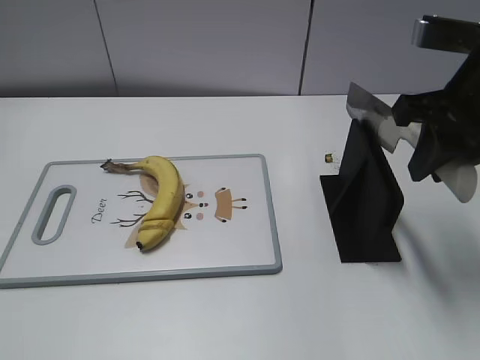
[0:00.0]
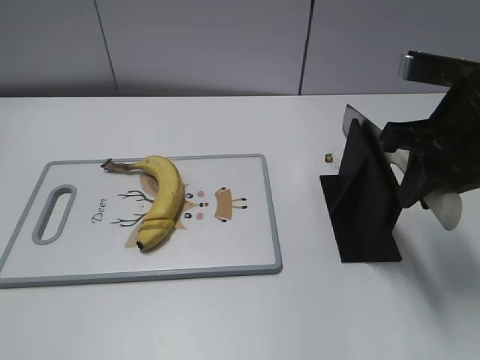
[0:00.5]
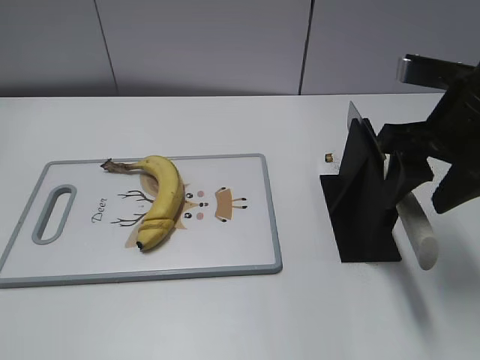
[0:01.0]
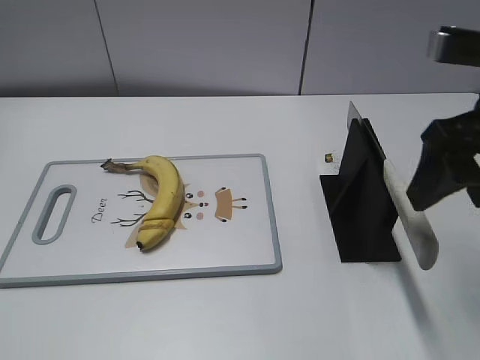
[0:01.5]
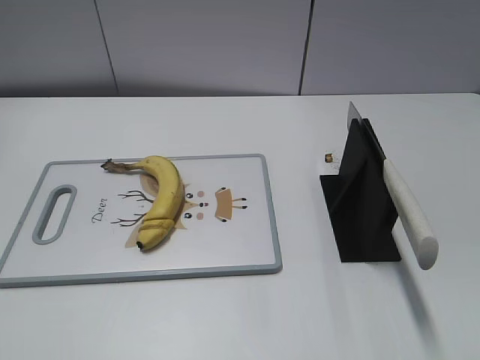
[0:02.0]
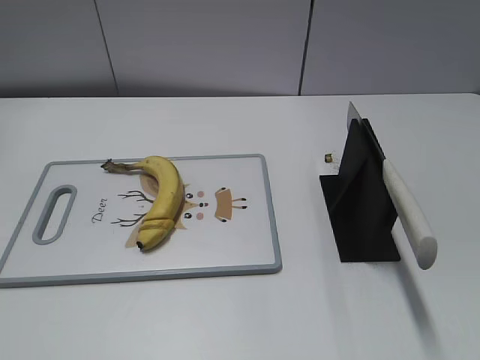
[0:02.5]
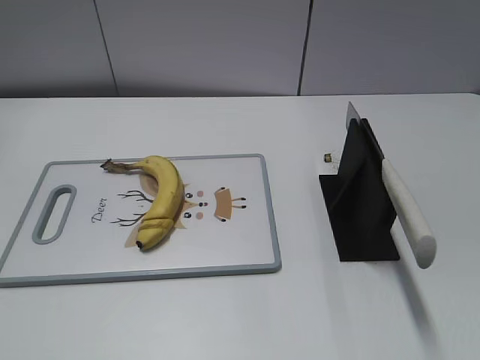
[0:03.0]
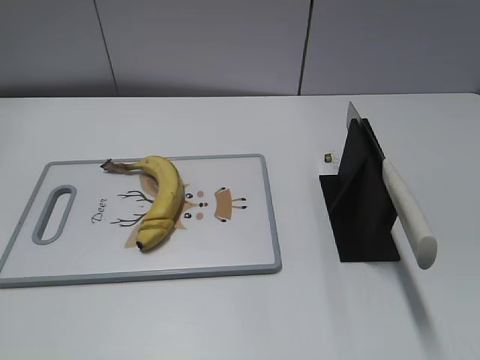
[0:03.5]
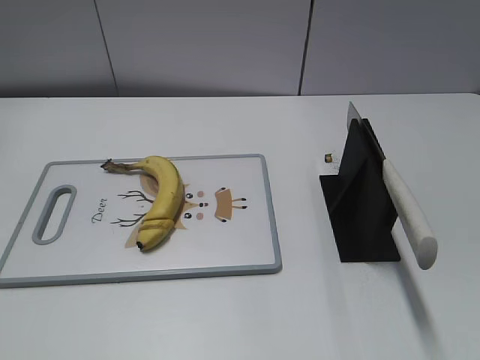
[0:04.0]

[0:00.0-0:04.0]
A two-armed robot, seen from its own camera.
Task of the whole recording: cut banana.
Step, 0:01.0 to 0:04.0: Place the knife on the storage rack with your right hand.
0:00.0 to 0:02.0: The right gripper moves backward, about 15 cm, and opens.

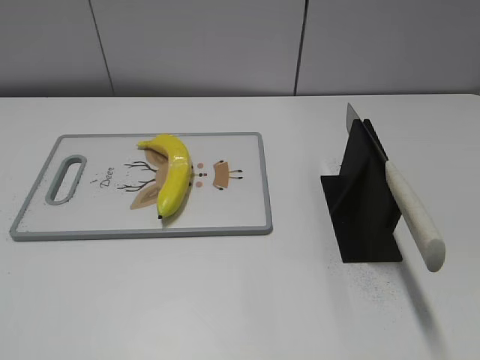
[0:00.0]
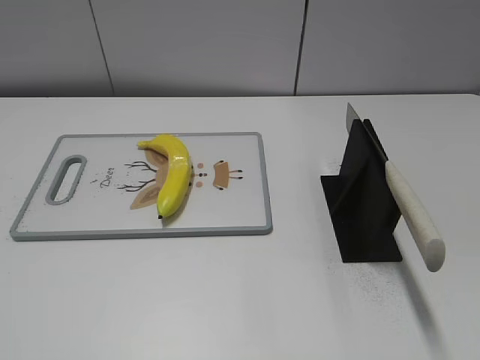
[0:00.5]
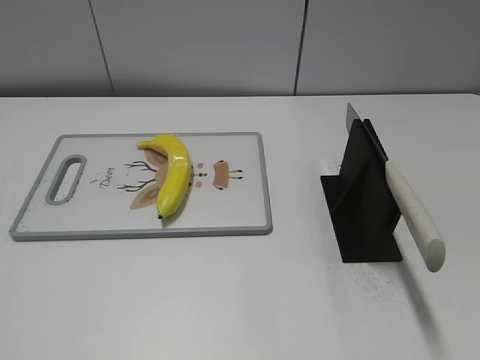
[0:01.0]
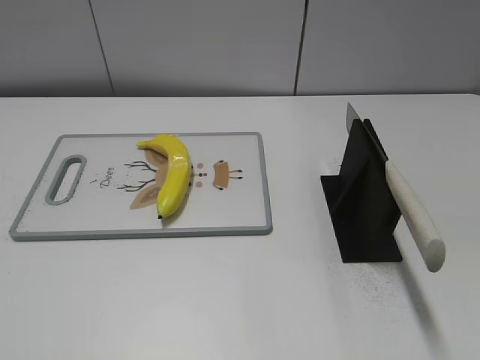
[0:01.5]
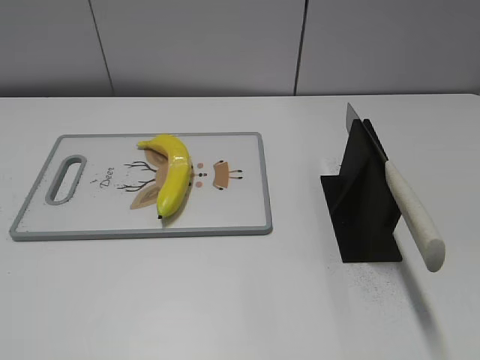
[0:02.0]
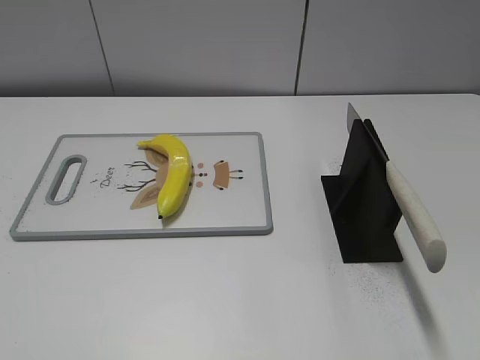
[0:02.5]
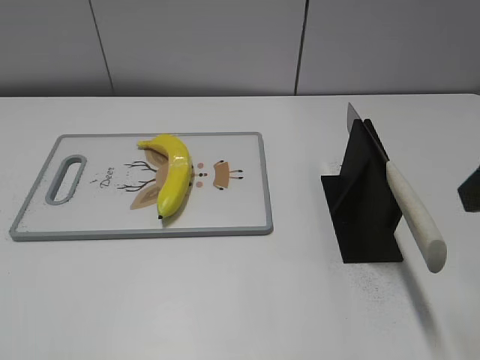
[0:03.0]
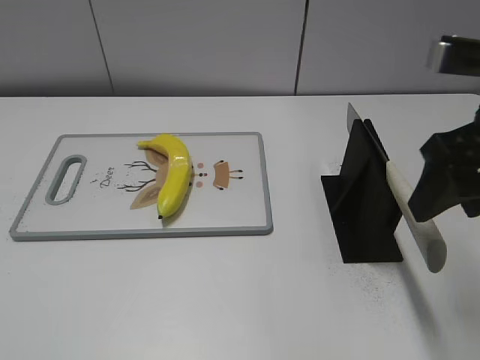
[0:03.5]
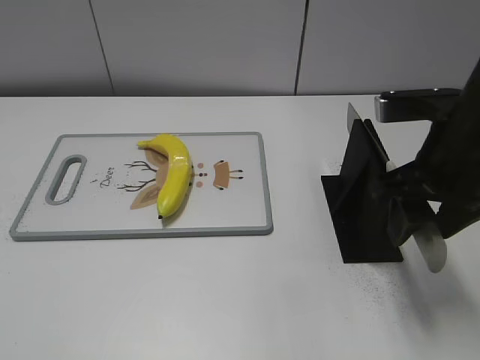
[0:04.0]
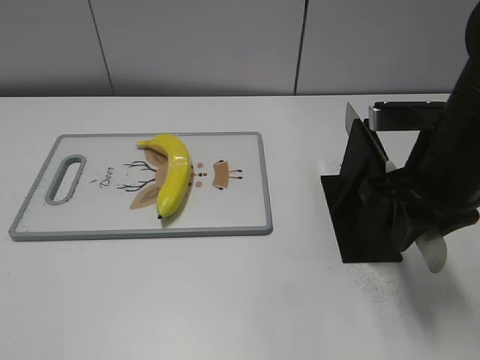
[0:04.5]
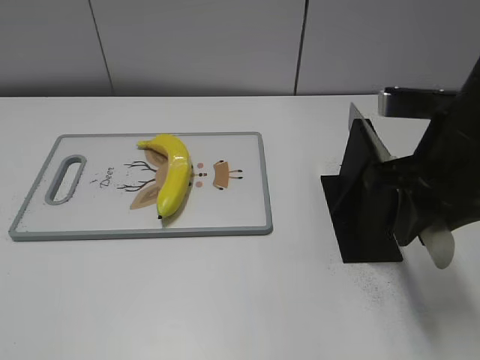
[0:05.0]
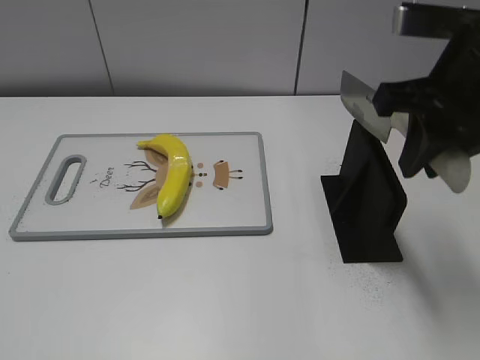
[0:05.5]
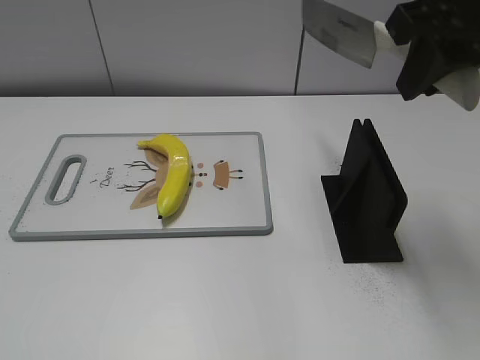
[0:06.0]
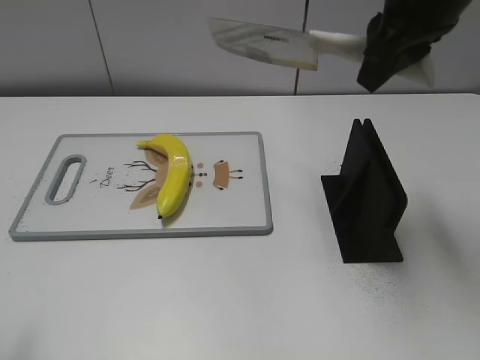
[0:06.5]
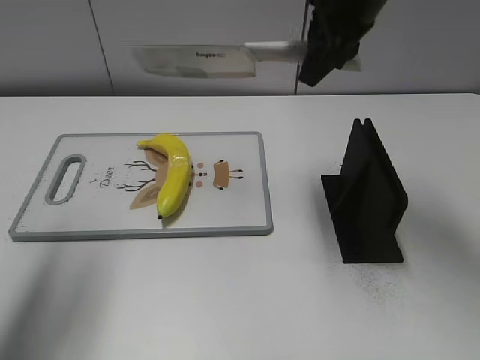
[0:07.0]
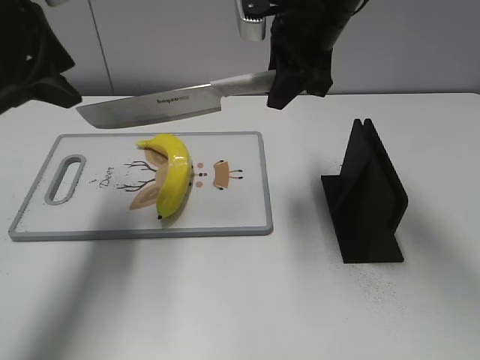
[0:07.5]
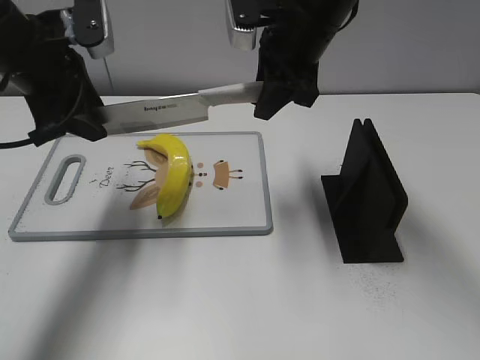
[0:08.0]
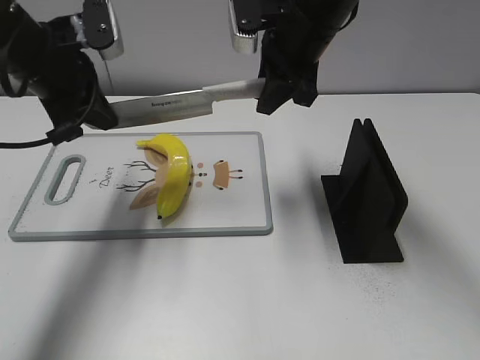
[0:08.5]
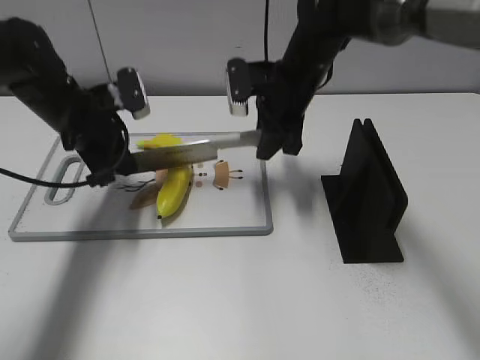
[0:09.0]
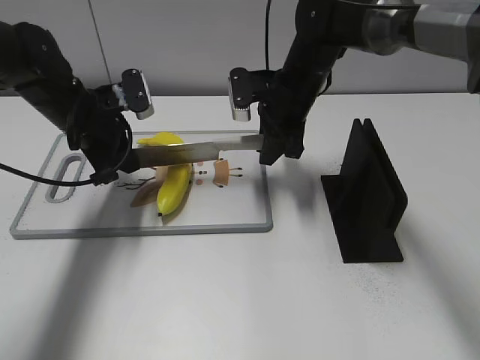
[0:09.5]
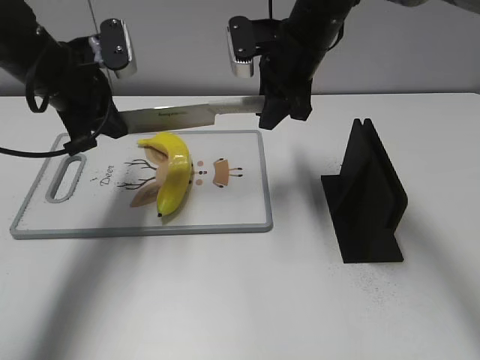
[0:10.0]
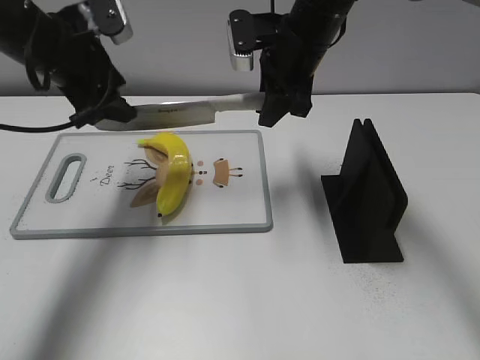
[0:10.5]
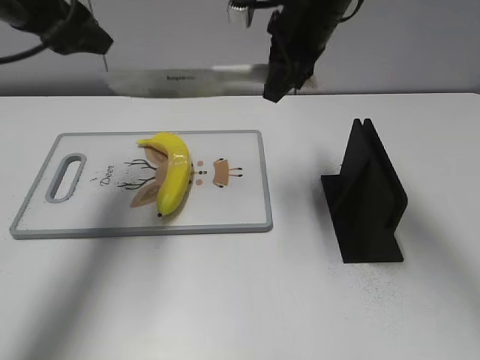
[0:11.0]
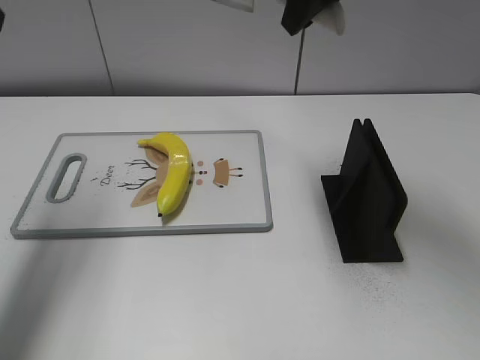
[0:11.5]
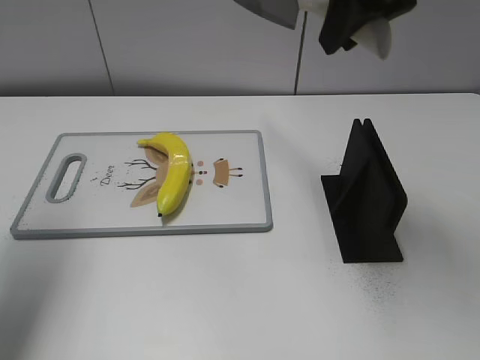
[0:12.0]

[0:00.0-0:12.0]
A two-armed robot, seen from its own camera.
Task of the whole recording: cut plastic banana.
Step, 0:00.0 to 0:05.5: Grab the knife handle with your right hand.
Step, 0:06.0 to 0:10.0: Hold the blade with your left hand.
Step, 0:10.5 to 0:11.5: Cut the banana with your left hand.
0:02.0 to 0:04.0: The right gripper shifts some 25 cm forward and to the left.
0:04.0 to 0:06.0: The right gripper is displaced upward by about 15 cm, and closes.
0:06.0 to 0:08.0: The right gripper is displaced forward, to the left and downward by some 20 cm. Meanwhile the left gripper heads forward, covering approximately 35 cm.
0:08.0 to 0:10.0: The left gripper closes up.
0:10.0 to 0:12.0: The right gripper moves upward and backward, roughly 20 cm, while the left gripper is displaced upward, to the left and backward by approximately 20 cm, and opens its fingers.

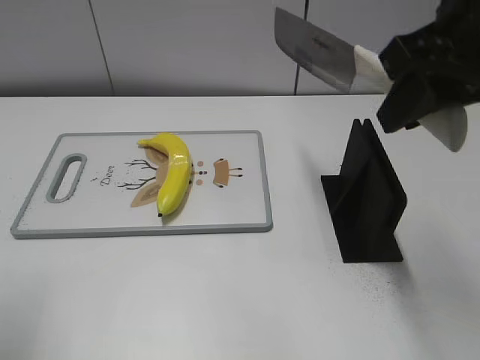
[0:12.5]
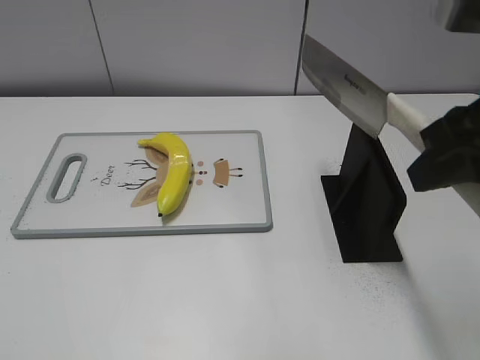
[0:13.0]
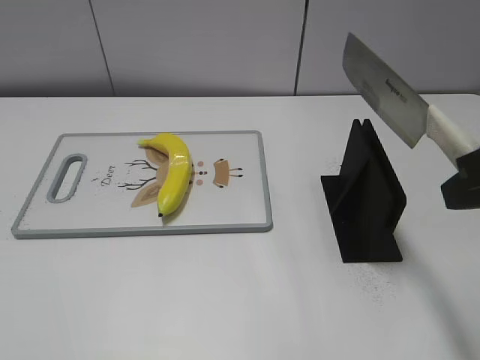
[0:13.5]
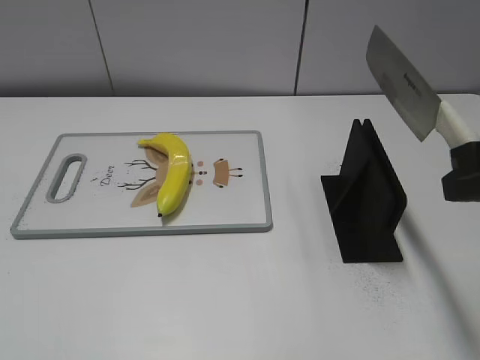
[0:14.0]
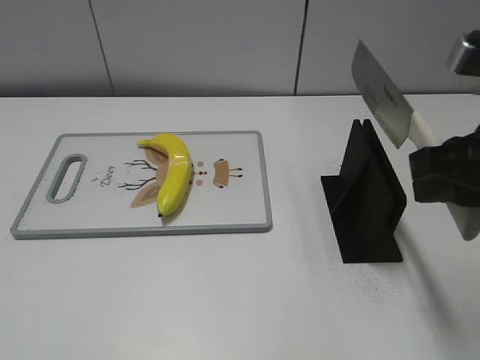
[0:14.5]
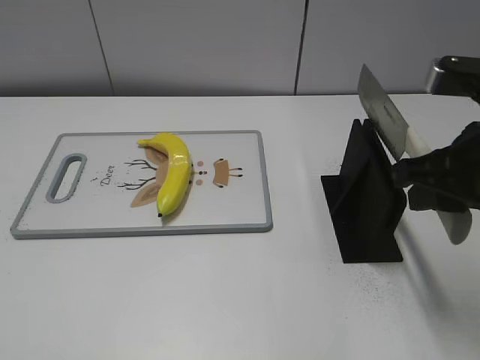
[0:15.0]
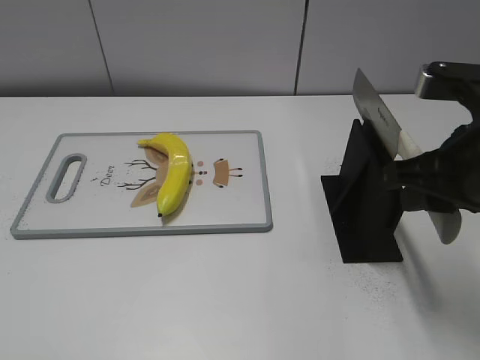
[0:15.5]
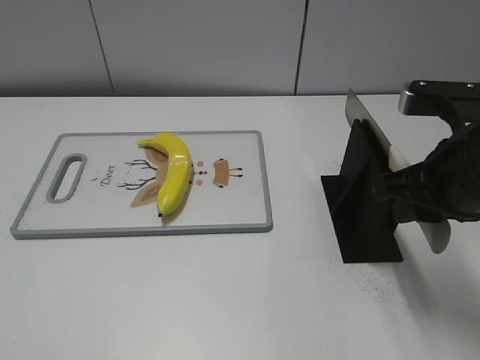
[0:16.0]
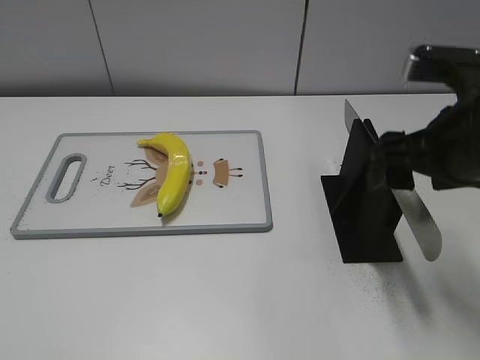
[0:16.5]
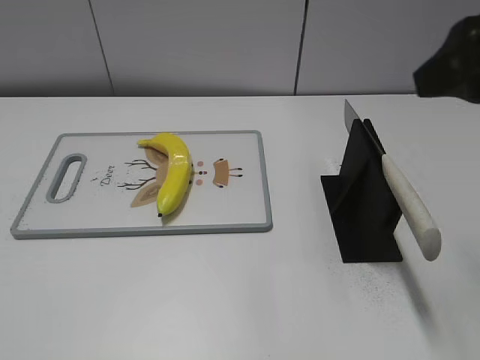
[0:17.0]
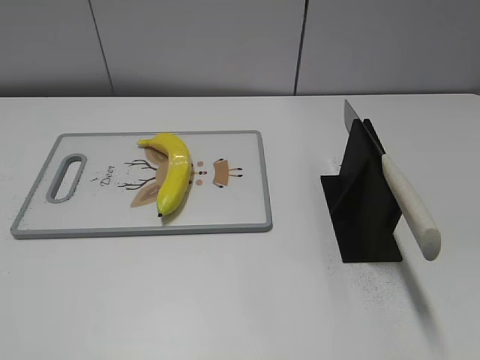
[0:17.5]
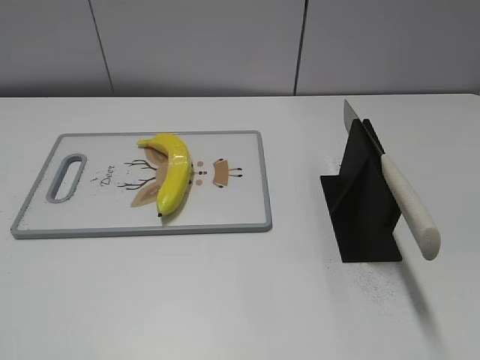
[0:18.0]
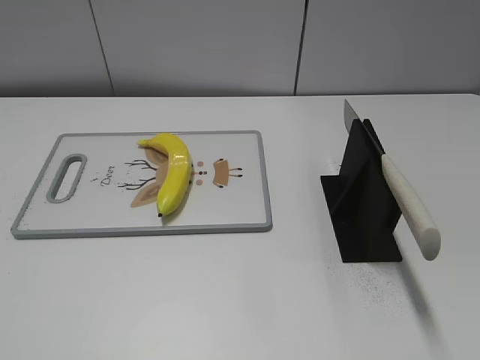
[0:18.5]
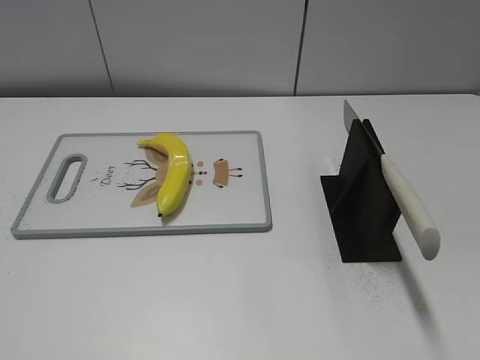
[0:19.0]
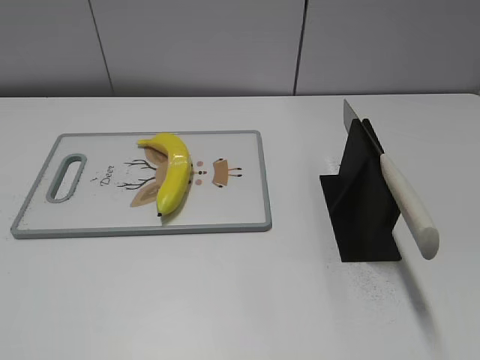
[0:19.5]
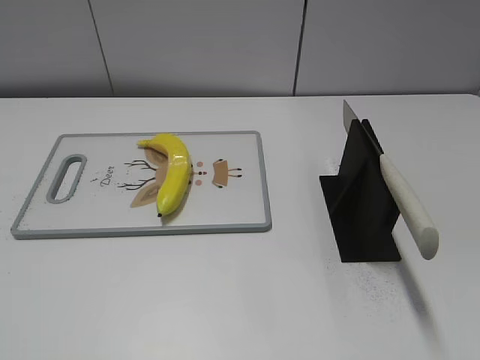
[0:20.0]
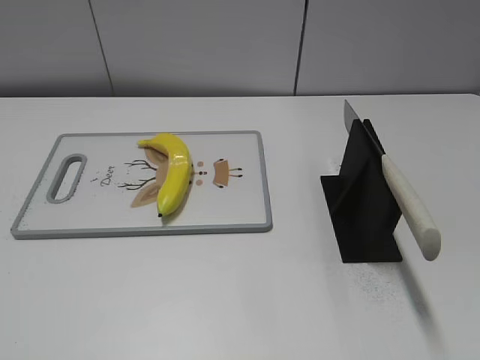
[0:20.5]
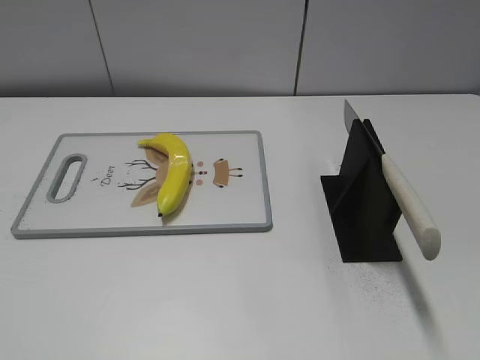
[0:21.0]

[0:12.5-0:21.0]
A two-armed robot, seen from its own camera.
Task of the whole recording: cut plastic banana.
Step, 0:13.0 to 0:20.0: Place the knife on the storage rack with your right hand.
0:12.5 to 0:14.5: The right gripper heads downward and backward, covering some 10 cm, while the left gripper moves backward, some 15 cm.
0:14.5 to 0:16.5: The right gripper moves approximately 5 cm, and opens.
0:16.5 to 0:19.0: The right gripper is displaced backward and to the right by about 25 cm.
